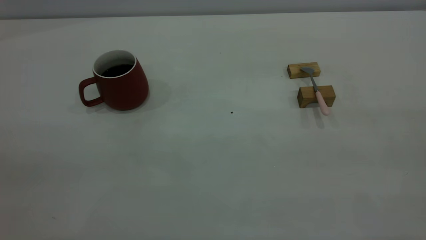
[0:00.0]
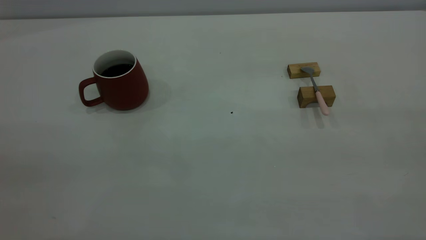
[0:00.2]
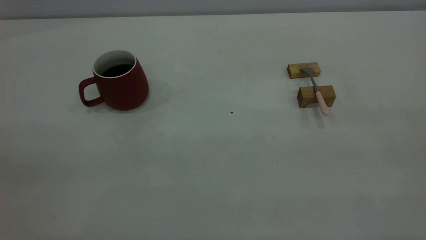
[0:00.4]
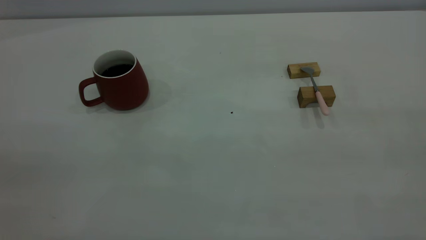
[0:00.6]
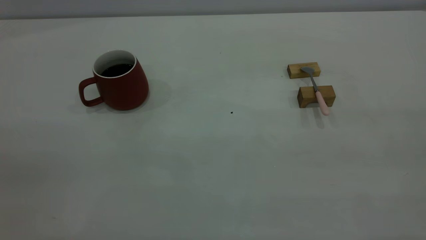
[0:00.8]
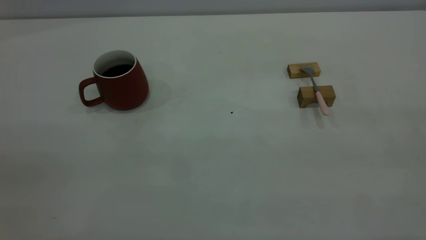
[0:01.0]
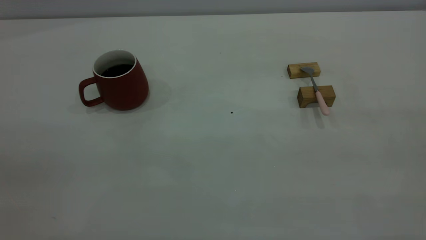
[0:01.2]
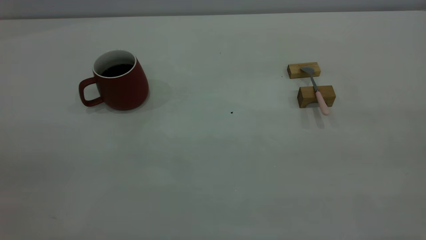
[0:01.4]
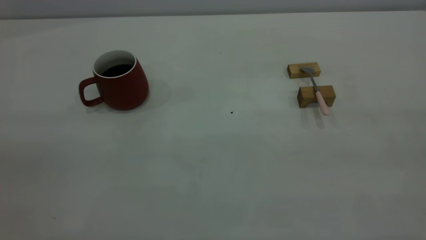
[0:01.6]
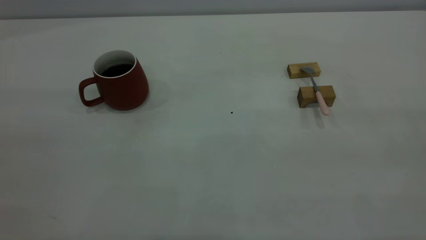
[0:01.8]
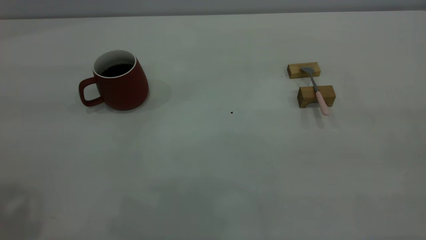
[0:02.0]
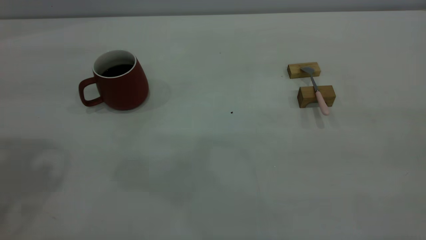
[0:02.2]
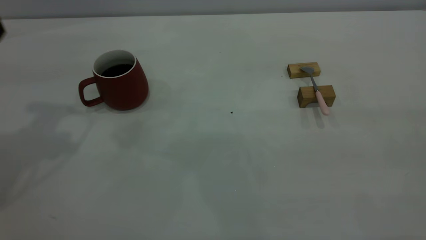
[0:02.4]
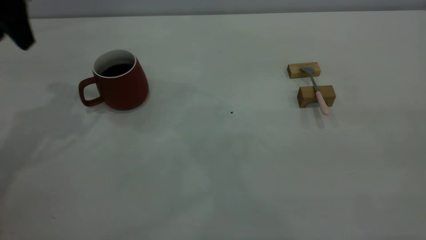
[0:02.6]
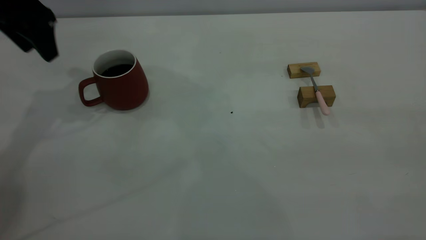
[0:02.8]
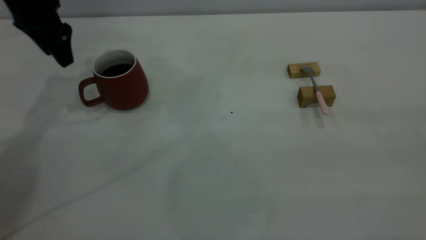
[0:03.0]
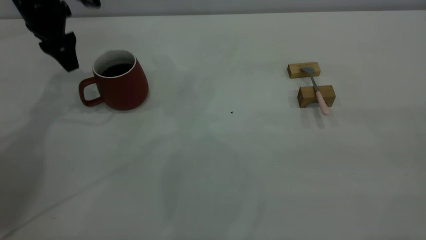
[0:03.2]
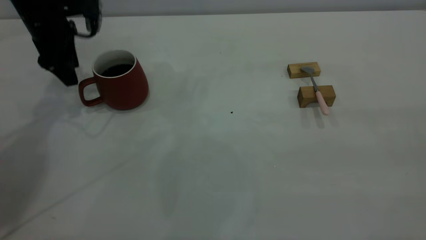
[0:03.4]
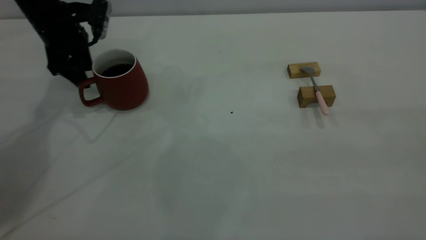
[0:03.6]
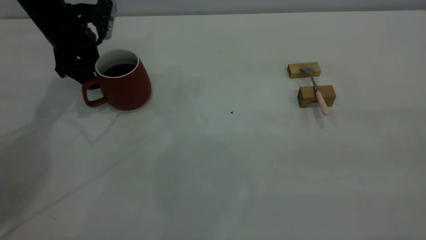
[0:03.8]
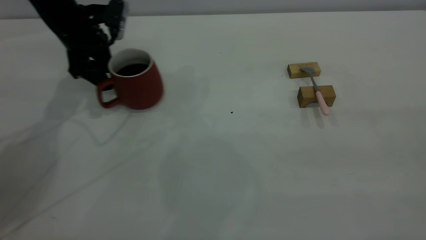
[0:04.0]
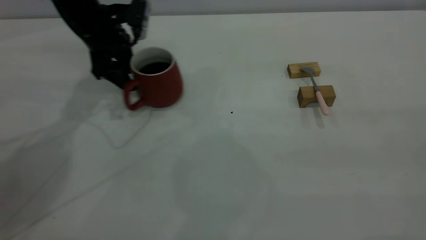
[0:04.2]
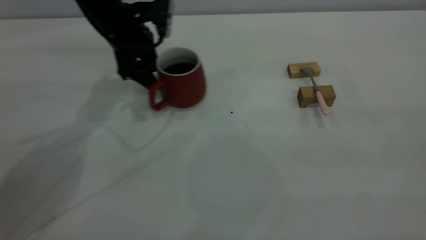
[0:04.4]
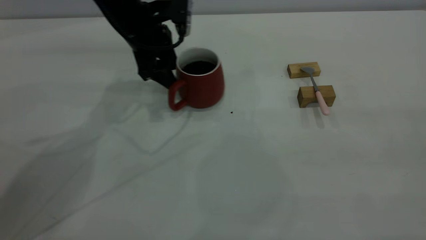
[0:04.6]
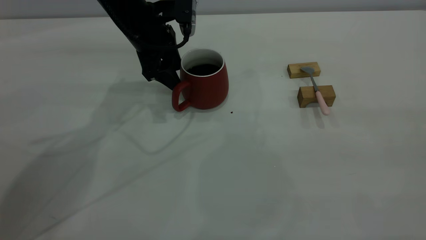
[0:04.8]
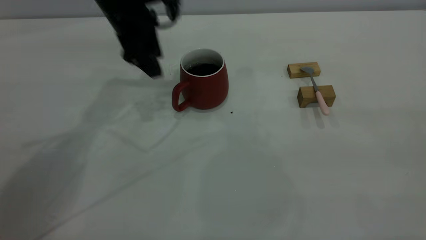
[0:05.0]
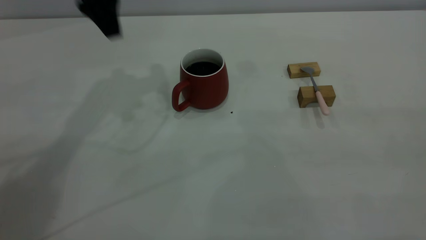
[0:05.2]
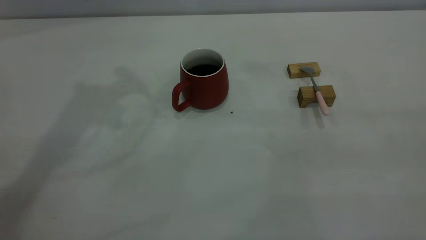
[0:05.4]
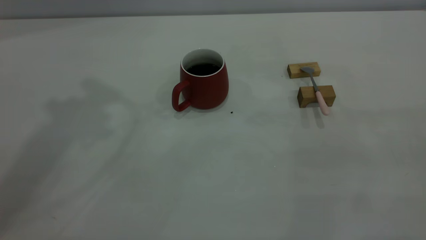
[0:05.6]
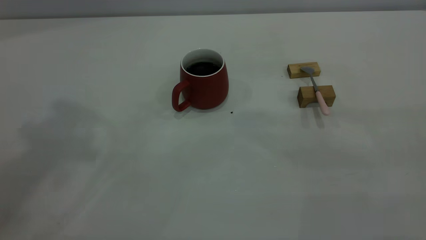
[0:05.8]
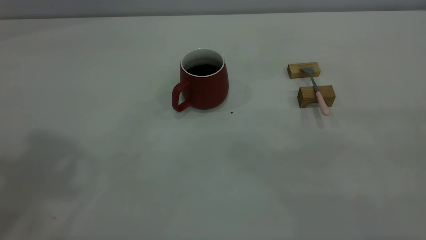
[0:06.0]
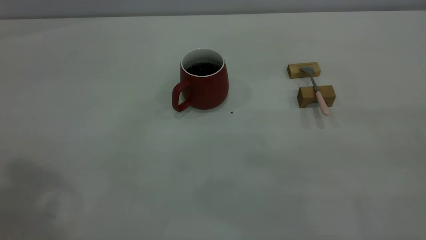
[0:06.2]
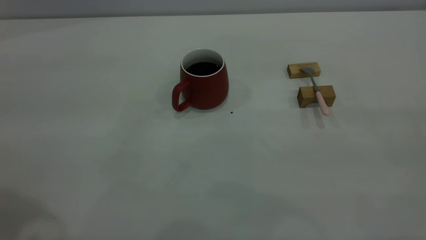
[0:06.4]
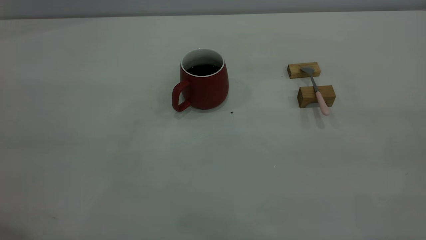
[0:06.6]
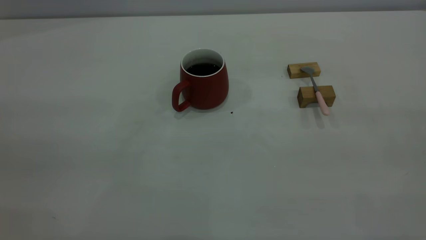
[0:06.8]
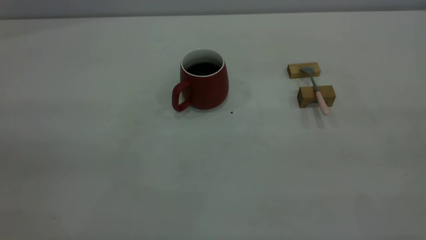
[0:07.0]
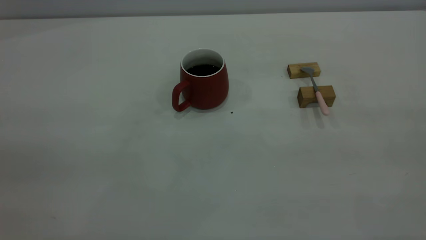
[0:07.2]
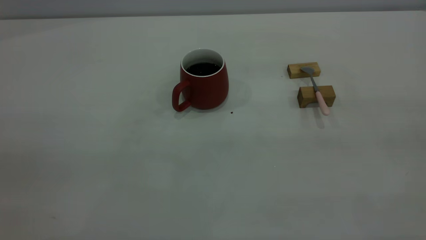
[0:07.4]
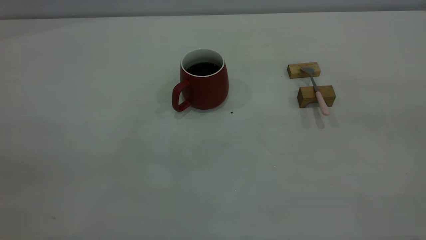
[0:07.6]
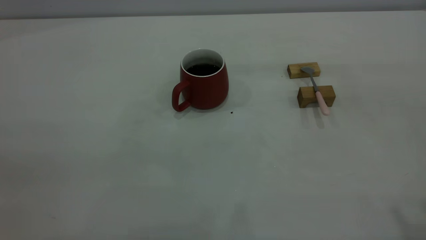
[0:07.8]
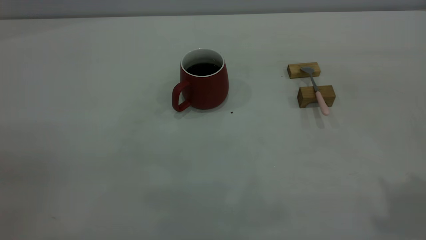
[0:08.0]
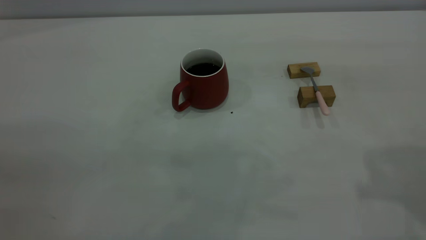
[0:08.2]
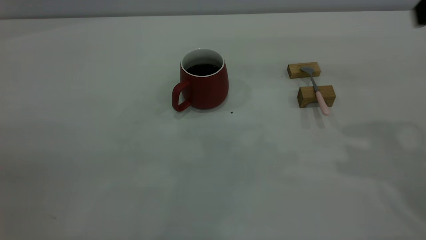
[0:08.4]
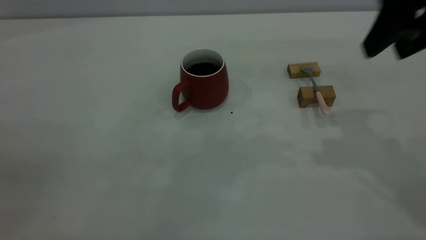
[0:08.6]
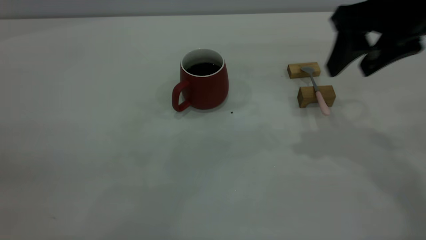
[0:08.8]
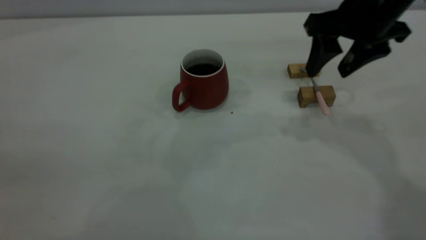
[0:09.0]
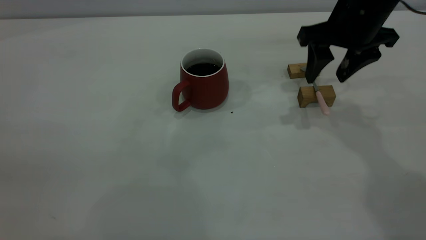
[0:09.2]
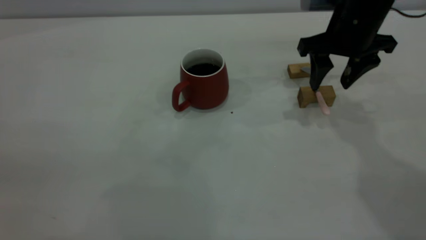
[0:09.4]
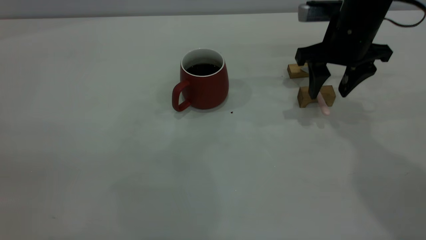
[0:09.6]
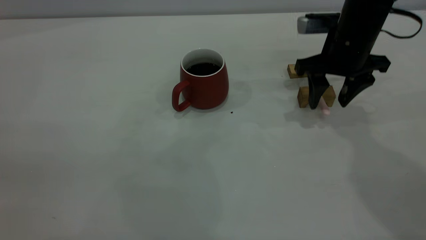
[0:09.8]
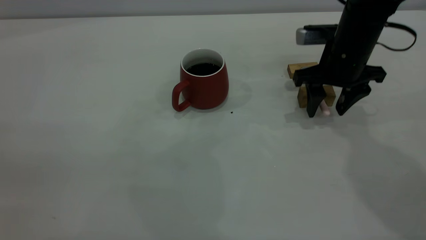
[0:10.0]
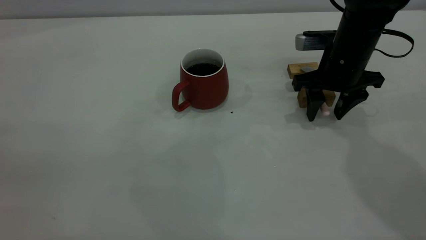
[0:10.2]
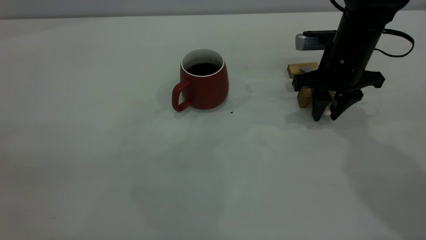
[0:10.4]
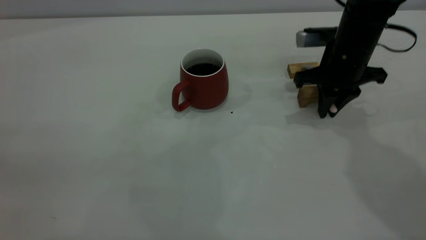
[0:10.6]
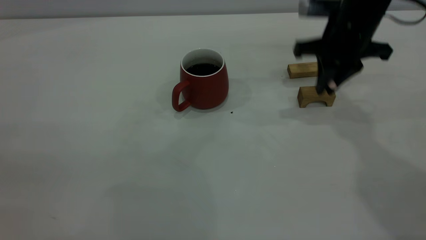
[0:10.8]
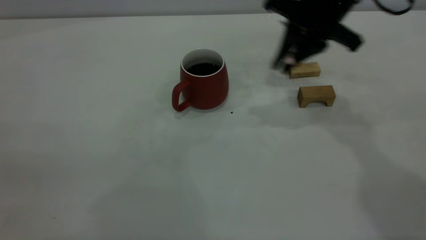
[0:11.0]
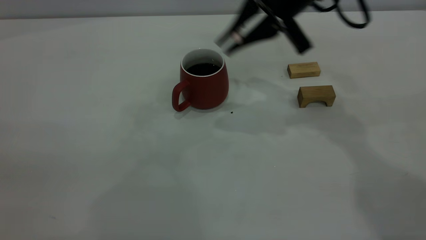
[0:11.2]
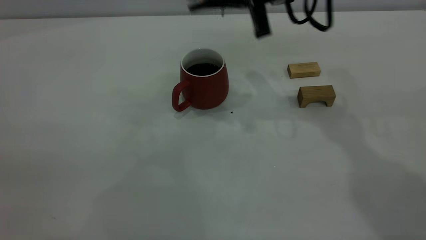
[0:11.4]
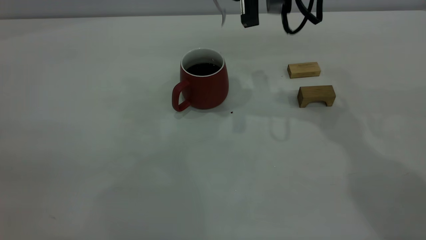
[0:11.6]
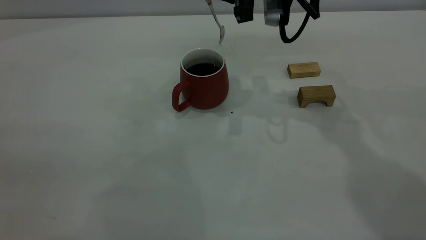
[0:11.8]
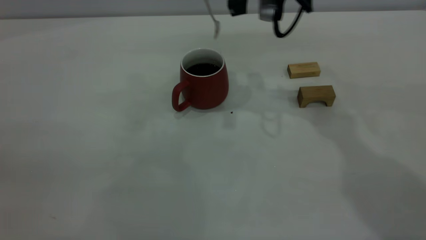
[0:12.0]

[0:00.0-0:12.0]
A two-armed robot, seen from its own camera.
Step, 0:00.0 to 0:05.0: Move the cup with coffee to the center of view.
Step, 0:05.2 to 0:10.6: Pick up the spoon.
0:01.6 to 0:03.0: The left gripper goes about 50 cm forward and downward.
0:03.0 to 0:04.4: The left gripper heads to the right and downward, covering approximately 15 cm.
0:04.4 to 0:06.0: The left gripper moves upward and backward, about 40 cm.
0:07.6 to 0:09.0: The right gripper moves forward and downward, about 35 cm, and opens up.
0:09.0 to 0:10.4: The right gripper is displaced downward by about 10 cm, and closes up.
0:10.4 to 0:12.0: The right gripper travels upward and to the left by some 15 cm.

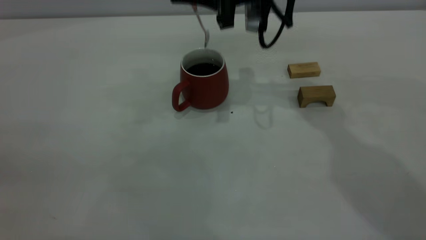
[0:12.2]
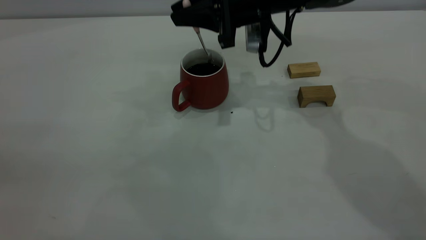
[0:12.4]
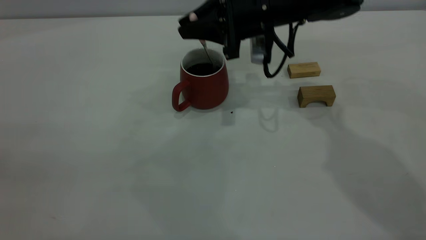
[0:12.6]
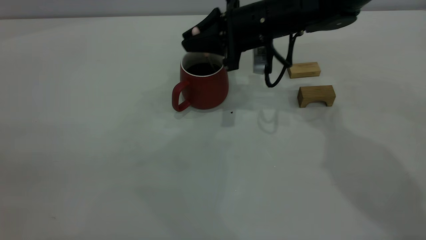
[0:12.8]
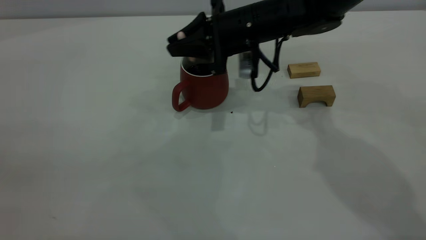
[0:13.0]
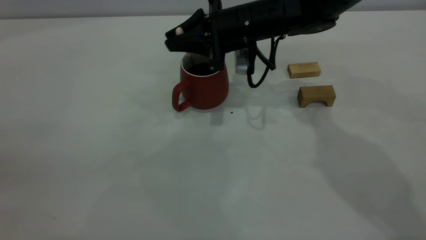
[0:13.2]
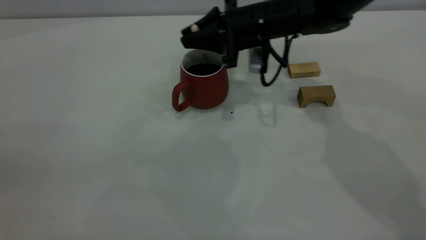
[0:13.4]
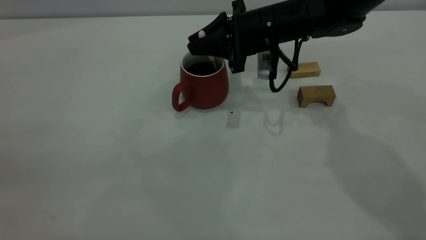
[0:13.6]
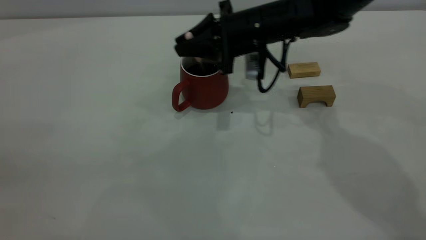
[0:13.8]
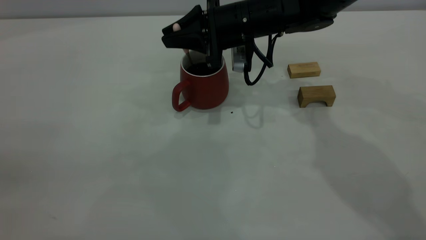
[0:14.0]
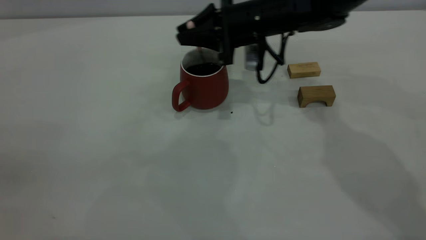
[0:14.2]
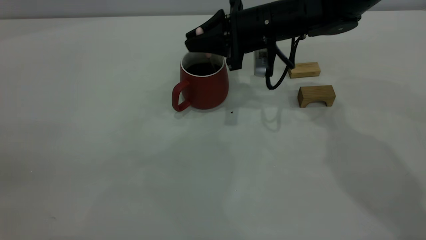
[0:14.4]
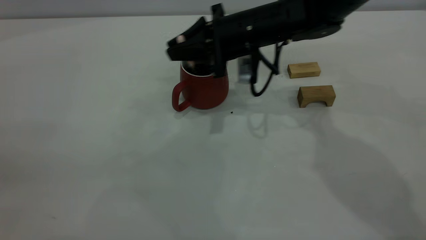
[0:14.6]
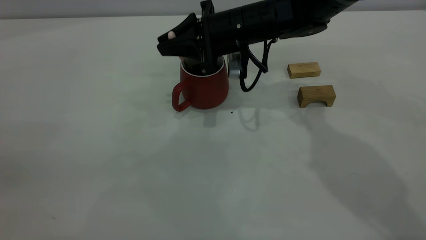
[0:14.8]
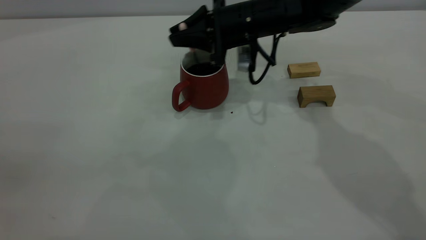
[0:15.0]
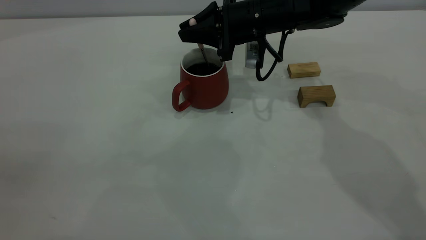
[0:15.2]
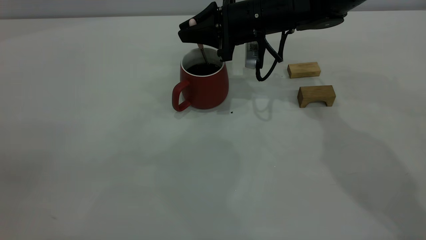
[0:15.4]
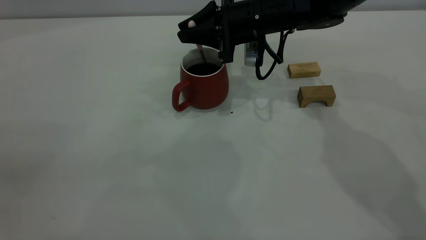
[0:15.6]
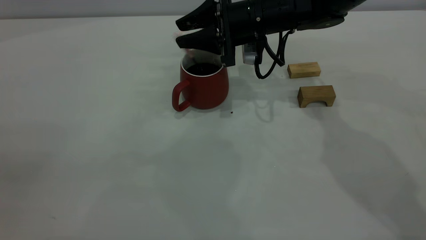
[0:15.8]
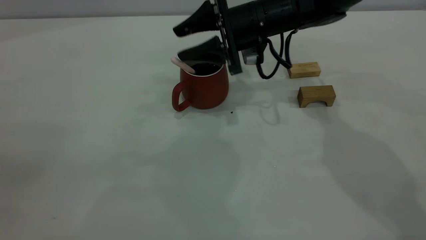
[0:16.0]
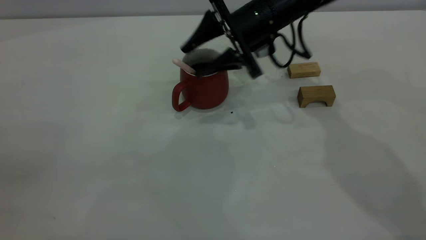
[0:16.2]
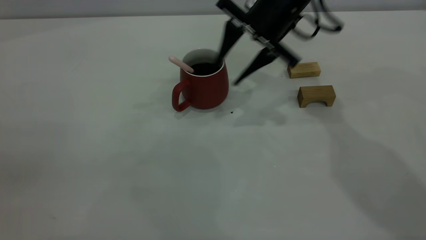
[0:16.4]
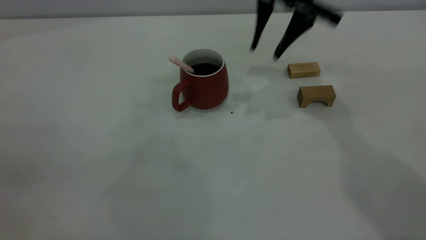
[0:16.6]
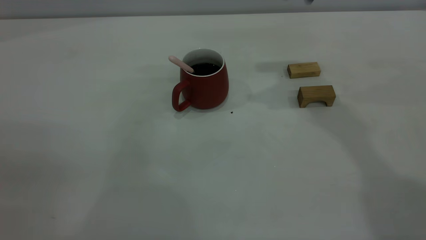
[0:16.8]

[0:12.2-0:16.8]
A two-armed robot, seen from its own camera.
Step, 0:12.2 to 0:16.4: Stir the coffee in the cup.
0:12.2 to 0:13.8: The right gripper heads downward, covering about 5 cm.
0:13.8 to 0:15.2: The grippers move only a little.
0:15.2 to 0:16.8: The right gripper moves upward, some 20 cm, and opens.
